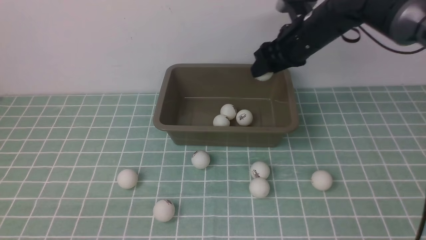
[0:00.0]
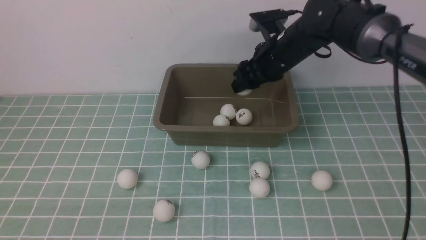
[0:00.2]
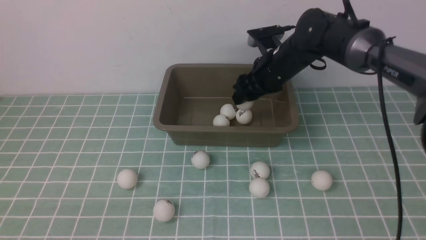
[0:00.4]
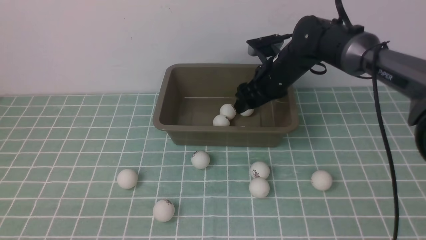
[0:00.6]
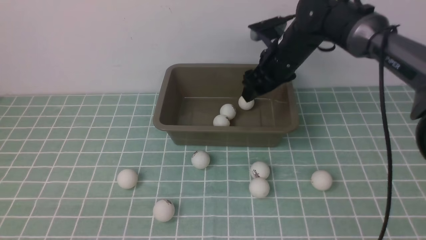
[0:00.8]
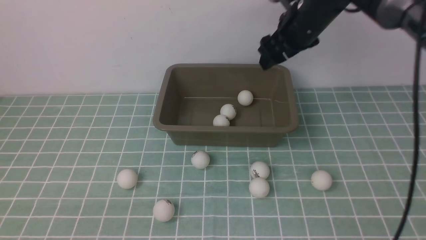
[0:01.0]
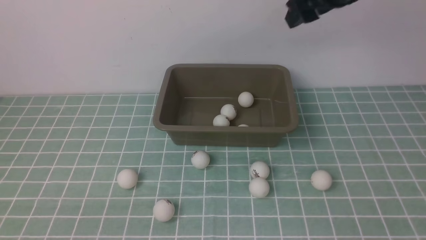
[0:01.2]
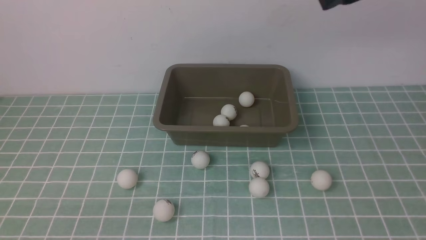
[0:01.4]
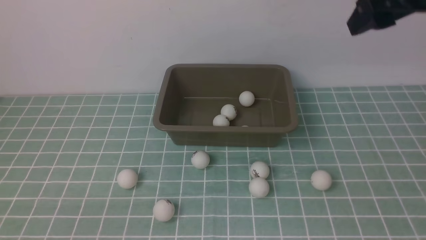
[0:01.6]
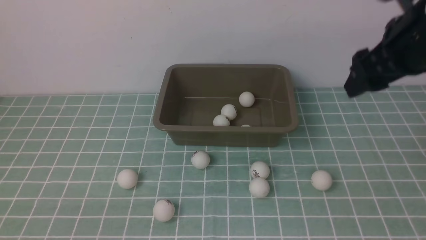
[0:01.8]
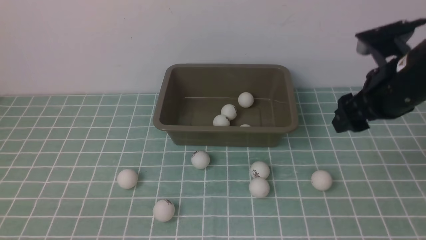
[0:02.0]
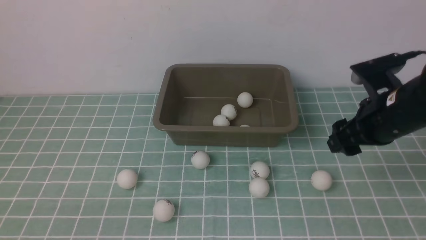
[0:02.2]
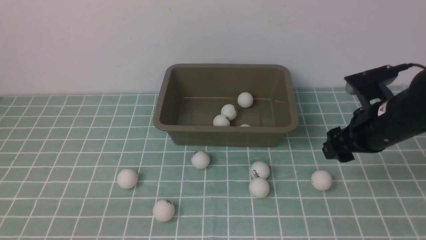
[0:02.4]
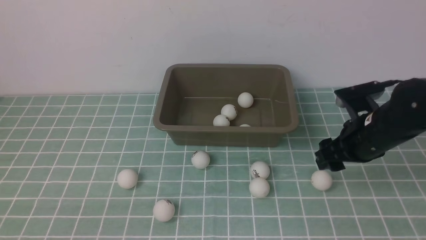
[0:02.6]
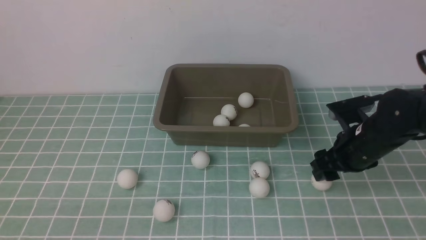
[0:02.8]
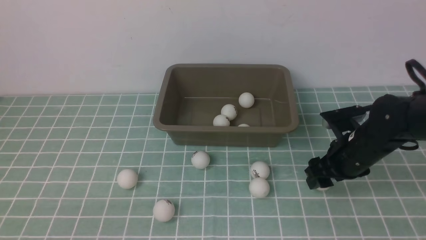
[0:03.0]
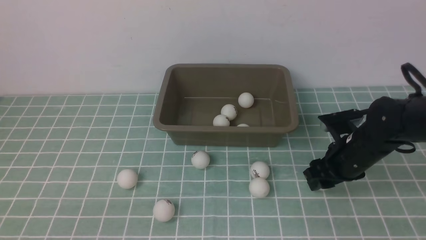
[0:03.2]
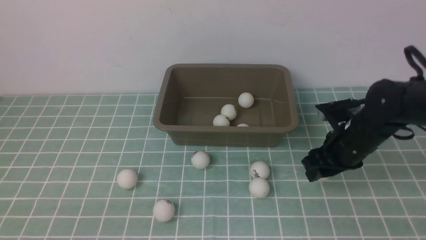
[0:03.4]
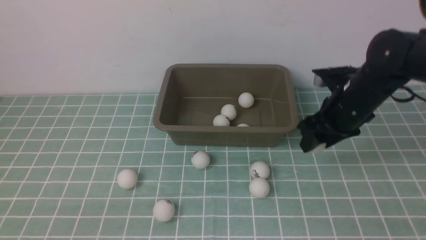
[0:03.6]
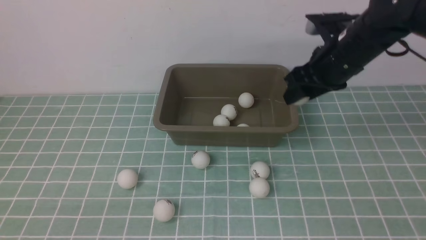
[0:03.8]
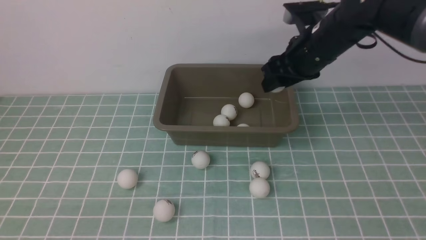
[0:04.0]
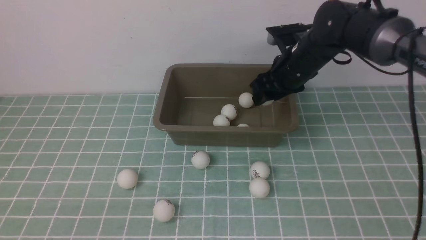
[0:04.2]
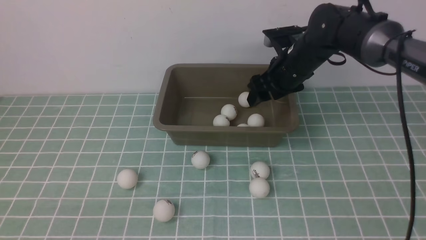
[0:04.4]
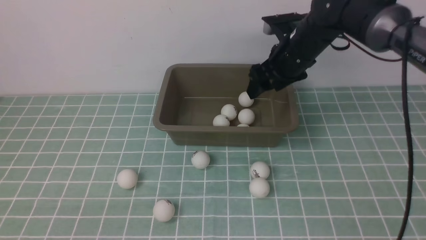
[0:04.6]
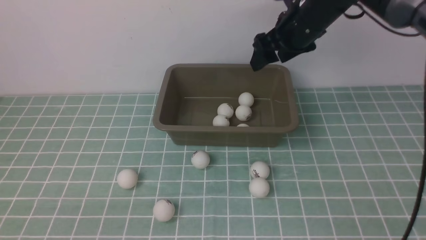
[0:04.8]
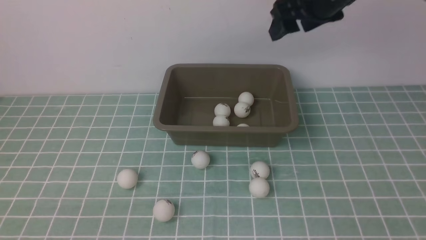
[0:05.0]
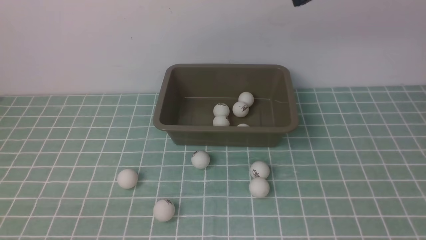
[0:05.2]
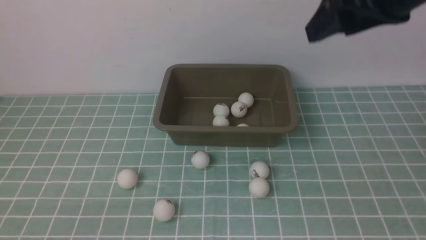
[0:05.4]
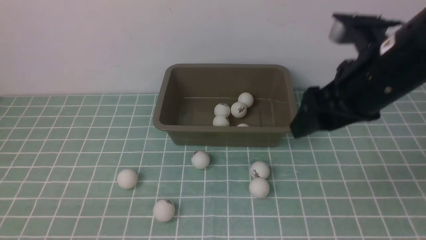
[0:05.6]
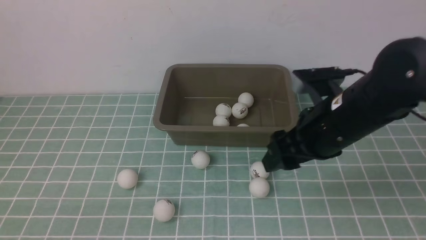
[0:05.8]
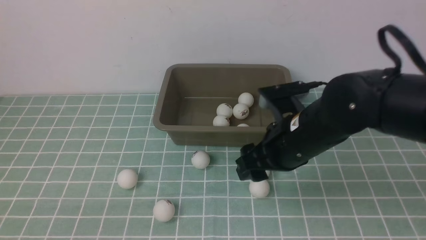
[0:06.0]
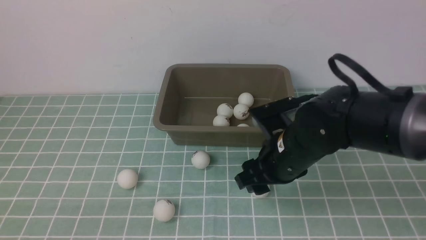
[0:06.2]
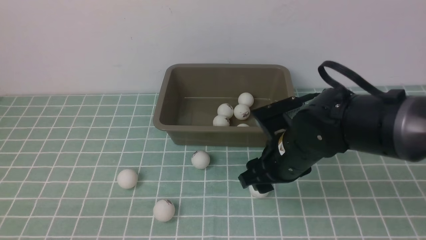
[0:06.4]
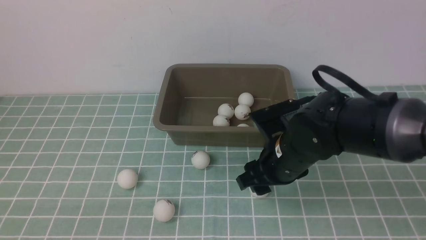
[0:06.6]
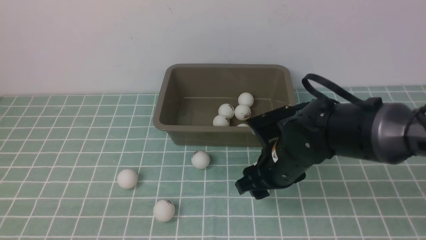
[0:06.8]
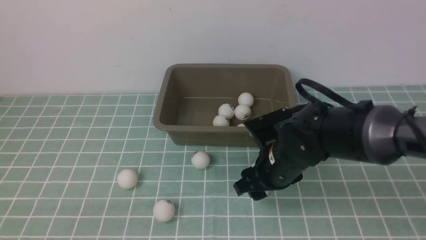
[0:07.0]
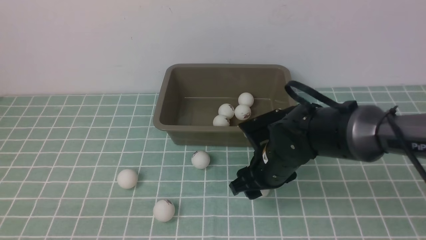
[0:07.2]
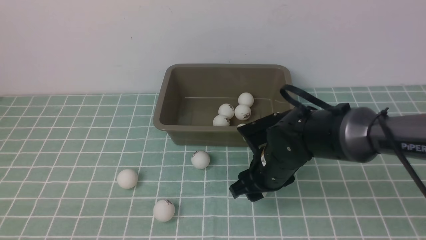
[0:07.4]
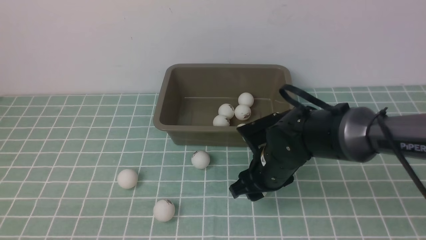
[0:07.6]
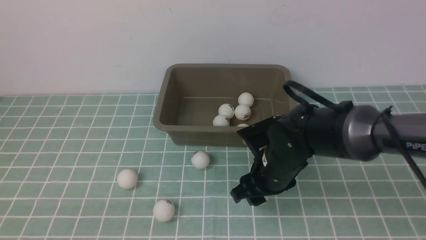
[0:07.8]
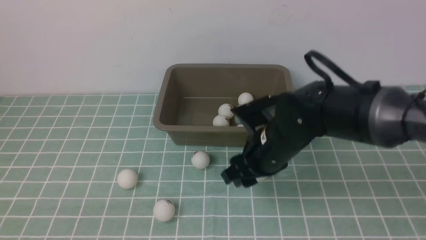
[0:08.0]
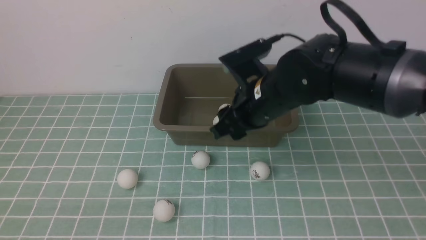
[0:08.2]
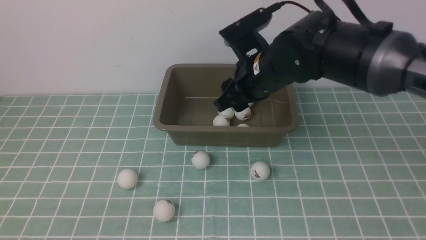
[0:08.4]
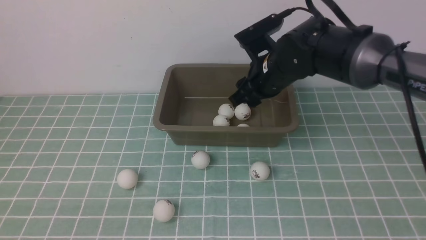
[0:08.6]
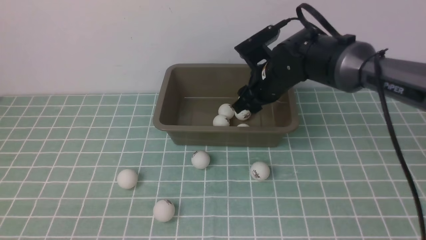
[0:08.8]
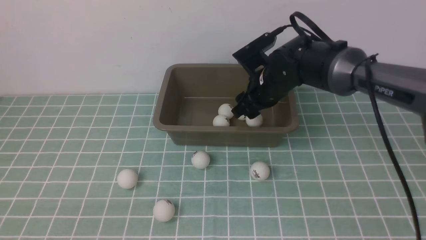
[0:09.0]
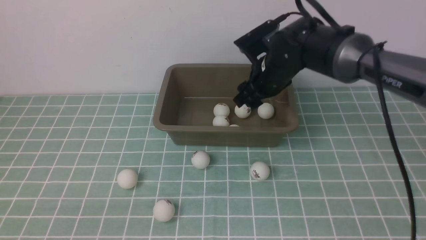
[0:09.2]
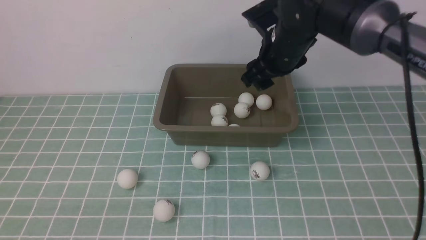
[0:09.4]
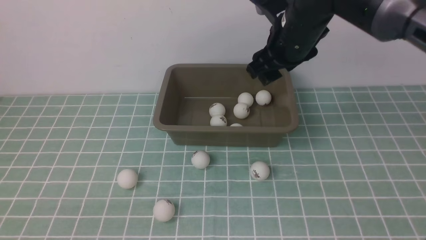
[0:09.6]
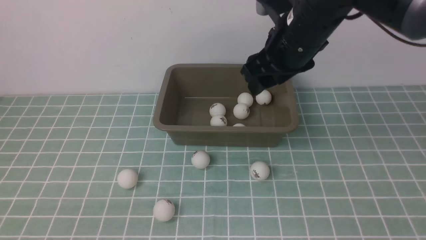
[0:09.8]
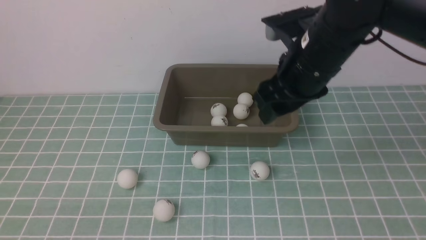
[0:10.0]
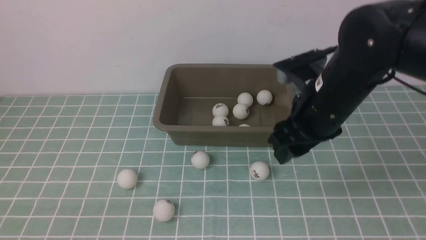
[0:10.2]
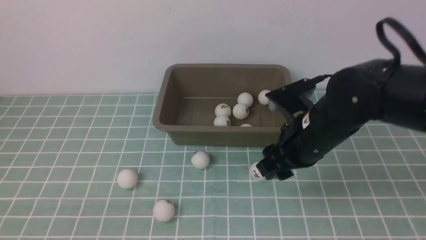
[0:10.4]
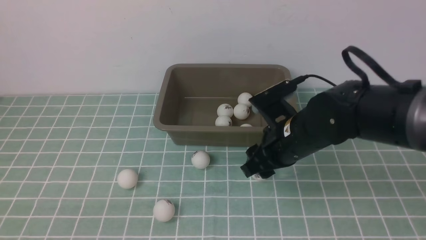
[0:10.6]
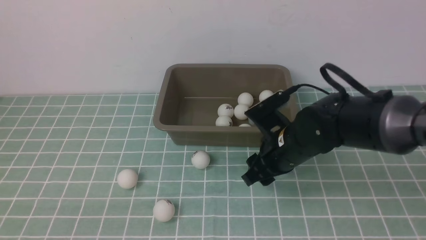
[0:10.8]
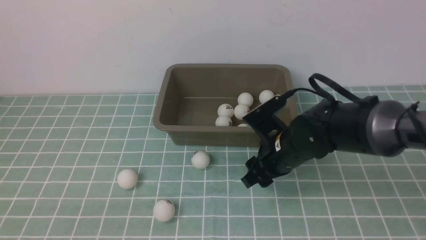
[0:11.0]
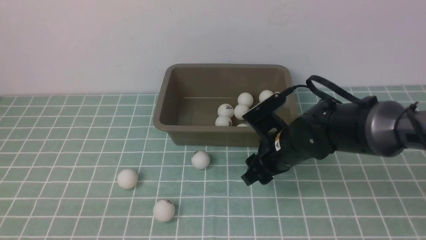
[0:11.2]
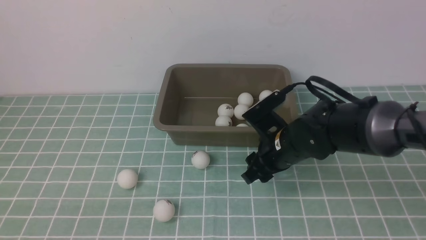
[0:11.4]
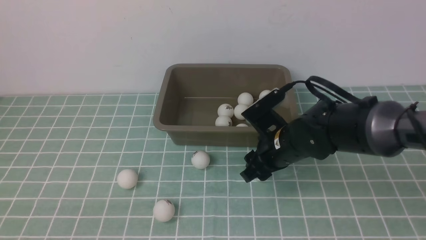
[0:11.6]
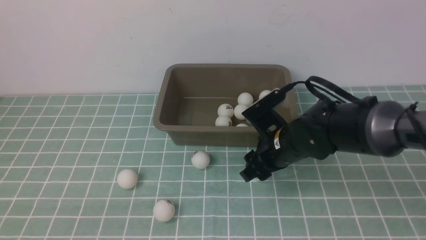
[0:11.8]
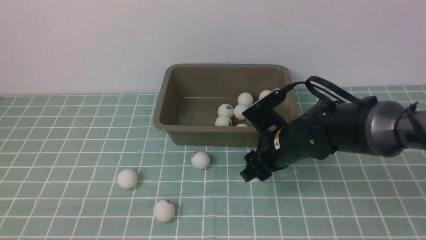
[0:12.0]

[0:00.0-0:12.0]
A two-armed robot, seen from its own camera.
Step, 0:00.0 to 0:00.6: use the right arm to put the table tennis ball into the box.
Step, 0:00.8 to 0:03.4: use the right arm to clamp the table tennis ball closest to it.
Step, 0:03.6 to 0:04.6: use the right arm to put the table tennis ball into the box.
Step, 0:04.8 to 0:08.0: use the right arm to clamp the table tennis ball closest to it.
Step, 0:08.2 to 0:09.2: use the right arm to put the table tennis ball into the box.
0:00.0 to 0:01.6: The right gripper heads backward and to the right, covering some 20 cm, and goes upward and returns, roughly 20 cm each way.
0:01.6 to 0:03.0: The right gripper is displaced downward by approximately 10 cm.
0:03.0 to 0:04.4: The right gripper travels forward, upward and to the left by about 15 cm.
0:04.4 to 0:06.0: The right gripper is displaced backward by some 20 cm, and goes upward and returns, some 15 cm each way.
0:06.0 to 0:07.6: The right gripper heads downward, covering roughly 10 cm.
0:07.6 to 0:09.0: The right gripper heads forward and upward, covering approximately 15 cm.
0:09.0 to 0:10.4: The right gripper goes some 15 cm backward.
0:10.4 to 0:12.0: The right gripper goes some 10 cm downward.

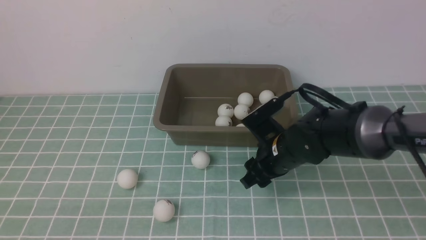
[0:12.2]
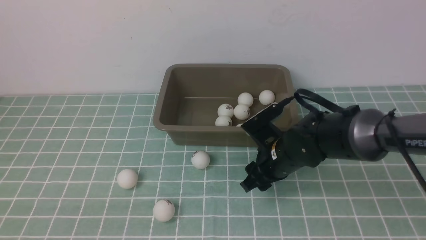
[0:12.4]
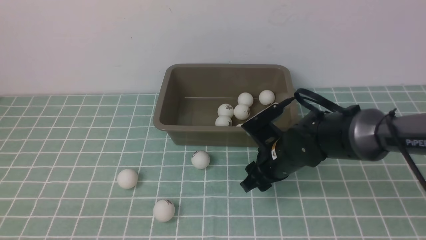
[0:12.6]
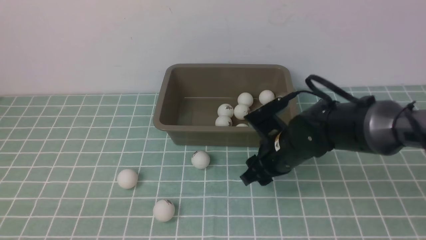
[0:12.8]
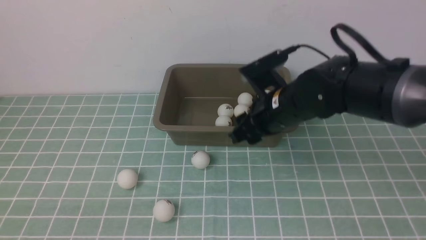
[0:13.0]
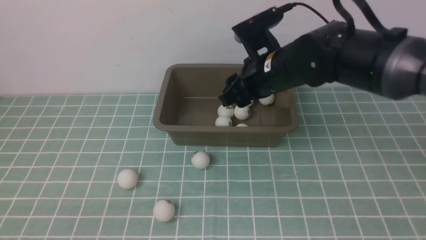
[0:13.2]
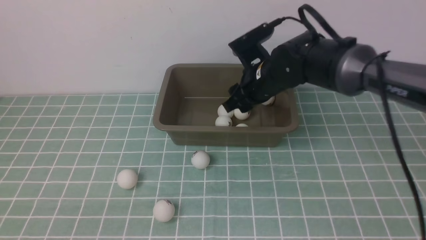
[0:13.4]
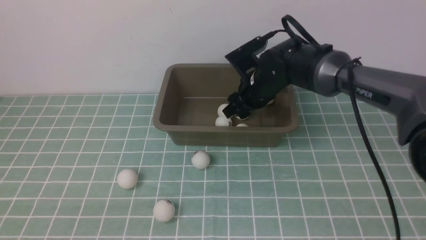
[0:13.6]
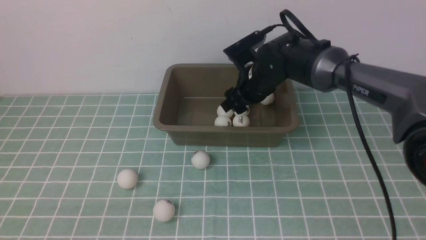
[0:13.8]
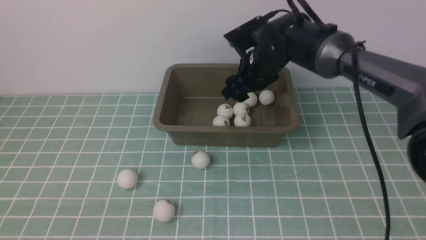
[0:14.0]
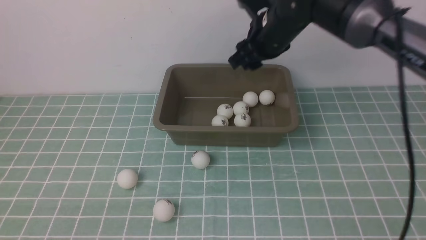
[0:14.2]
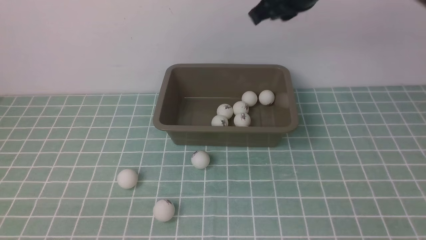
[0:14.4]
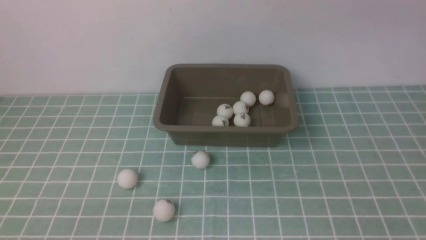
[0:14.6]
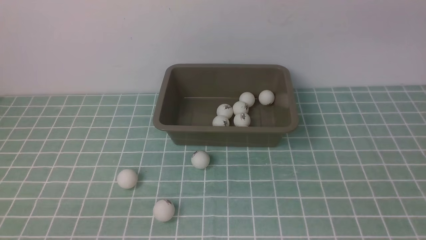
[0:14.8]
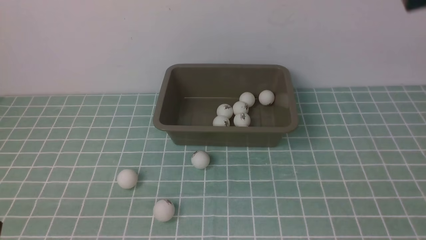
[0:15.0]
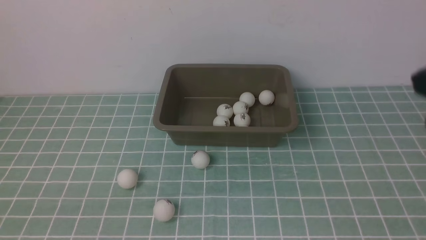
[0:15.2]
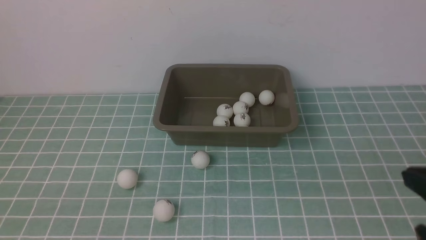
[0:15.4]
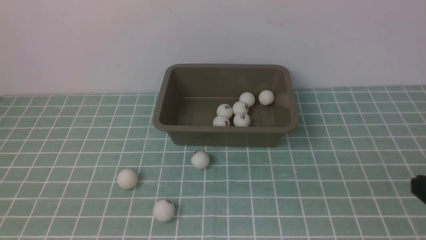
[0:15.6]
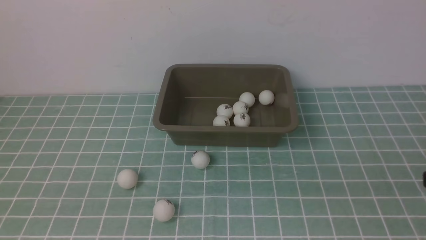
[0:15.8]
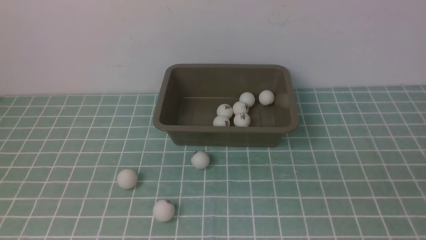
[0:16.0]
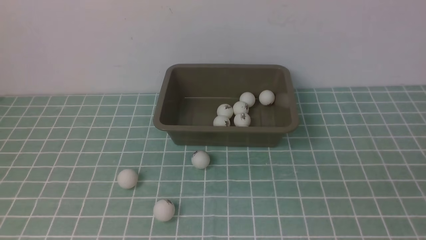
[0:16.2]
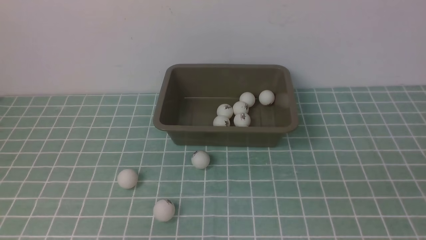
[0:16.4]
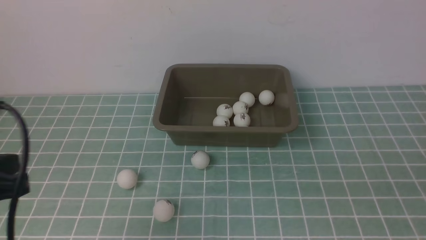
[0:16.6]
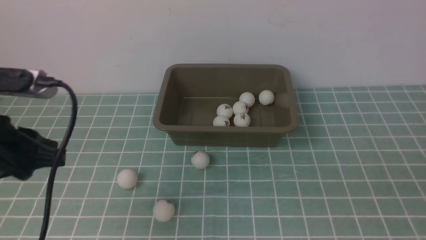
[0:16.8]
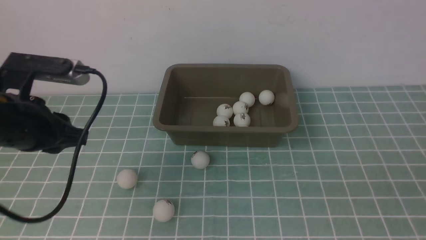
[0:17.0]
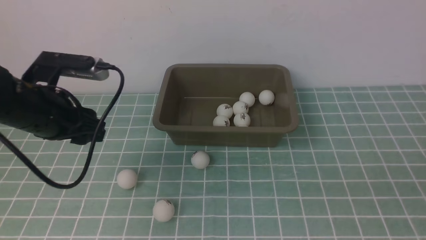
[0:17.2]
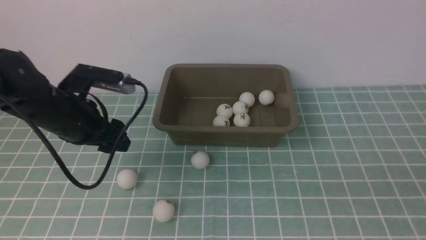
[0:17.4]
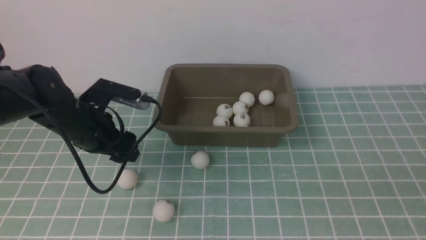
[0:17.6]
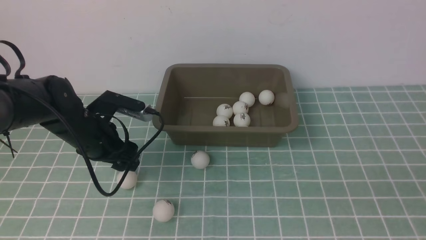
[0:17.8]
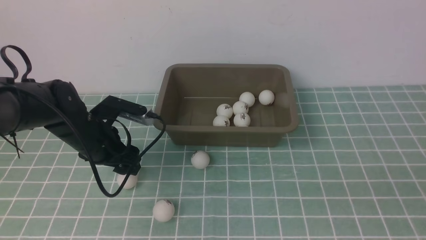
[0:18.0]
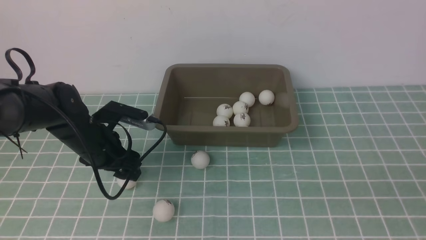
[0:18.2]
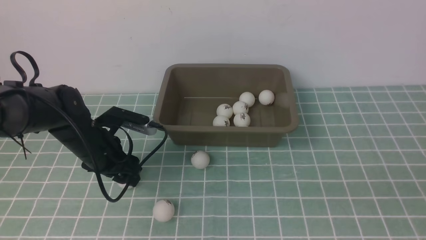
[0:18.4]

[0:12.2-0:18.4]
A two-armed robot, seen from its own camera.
Step, 0:13.2 to 0:13.8: use the right arm to put the table tennis ball into the box.
0:12.2 to 0:13.8: The right gripper travels forward and upward by roughly 15 cm.
0:13.8 to 0:15.4: The left gripper heads upward, covering some 5 cm. The right gripper shifts roughly 40 cm backward and to the right, and closes up.
0:15.4 to 0:16.8: The left gripper shifts roughly 20 cm forward, and opens its fingers.
0:16.8 to 0:18.4: The left gripper moves forward and downward, roughly 15 cm.
